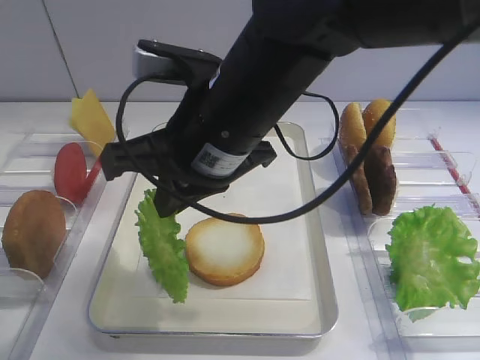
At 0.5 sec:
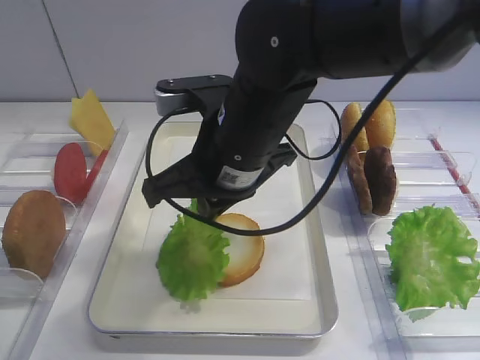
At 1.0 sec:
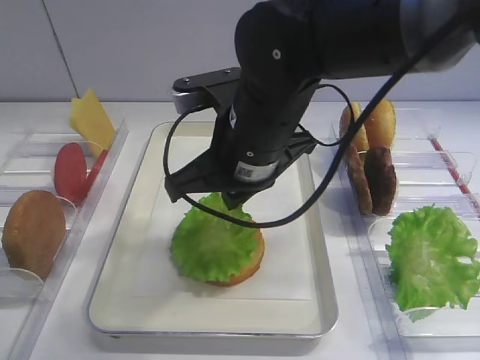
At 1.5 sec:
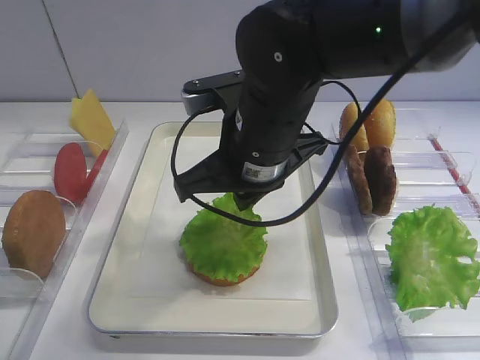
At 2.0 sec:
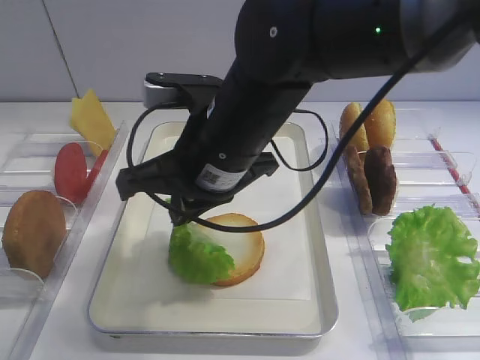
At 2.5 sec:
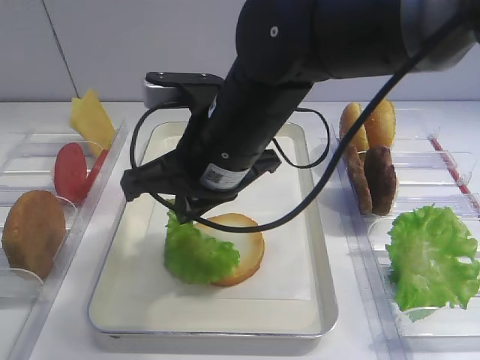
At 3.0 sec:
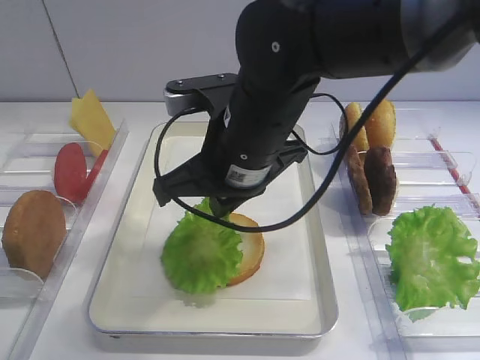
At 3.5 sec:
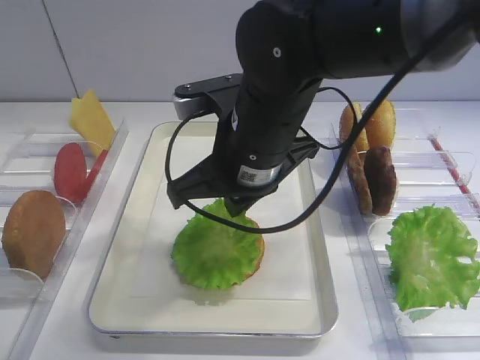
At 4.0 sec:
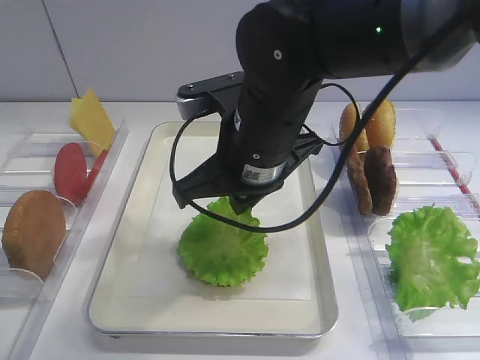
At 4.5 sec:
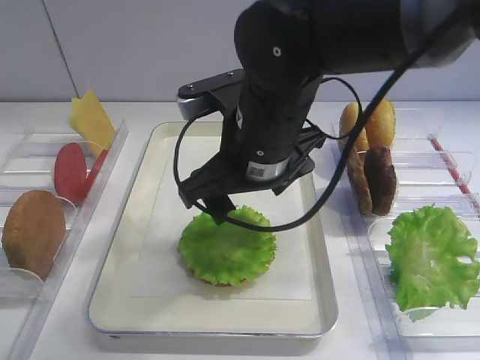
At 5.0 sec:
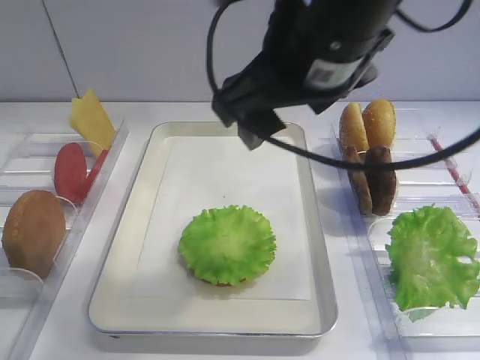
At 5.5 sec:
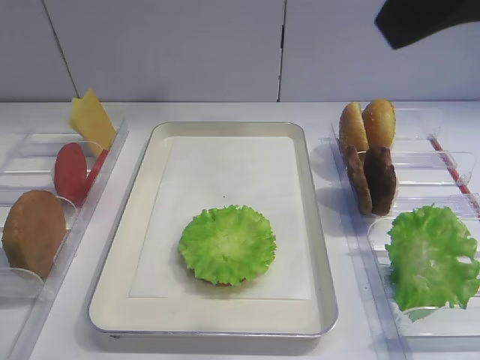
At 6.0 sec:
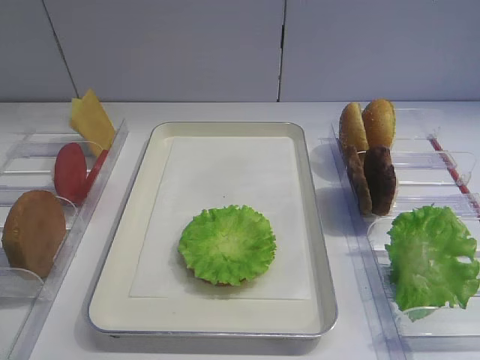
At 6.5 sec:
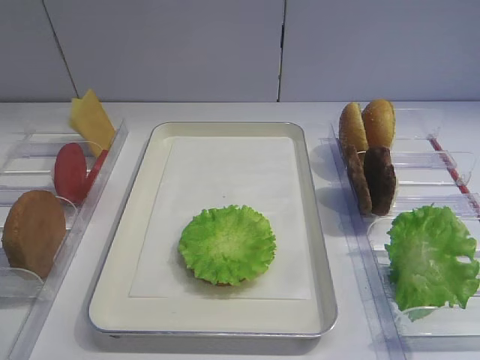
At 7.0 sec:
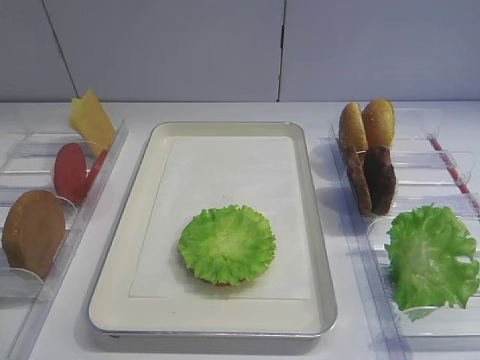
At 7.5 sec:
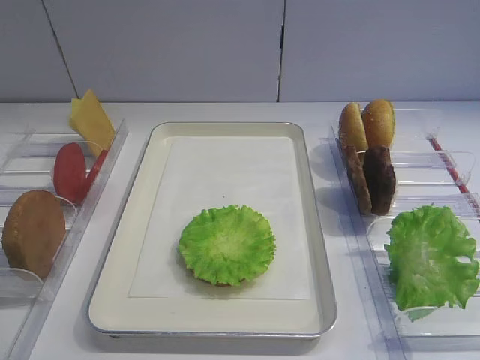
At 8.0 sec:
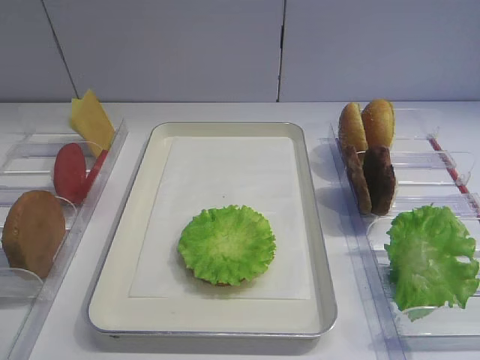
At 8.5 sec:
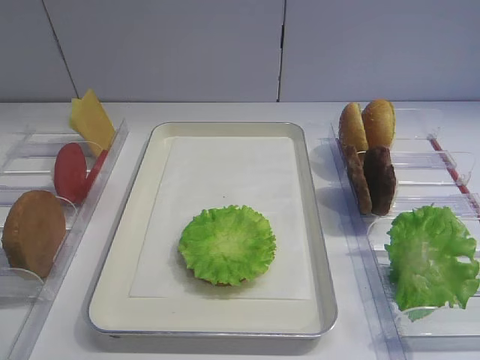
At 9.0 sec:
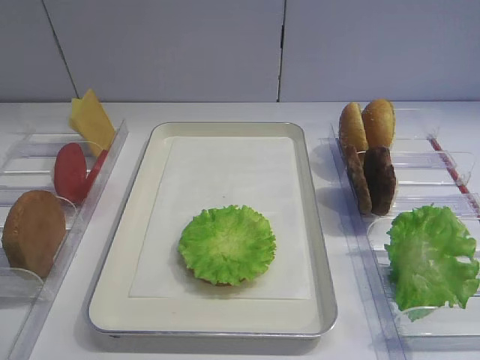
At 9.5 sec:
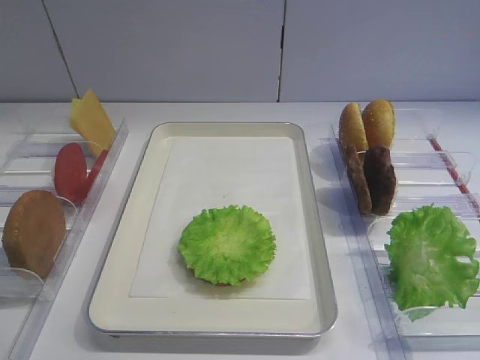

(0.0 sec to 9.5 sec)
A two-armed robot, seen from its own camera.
Step, 0.0 sec - 4.0 sec: Place the lettuce leaf on the bread slice with the right gripper.
2.0 sec - 4.0 sec: The grippers move only a little.
4.0 sec - 5.5 sec: The right gripper shifts about 30 cm upward, to the right and backward, and opens.
5.5 sec - 7.5 sec: The right gripper moves downward, backward and to the right, roughly 25 cm.

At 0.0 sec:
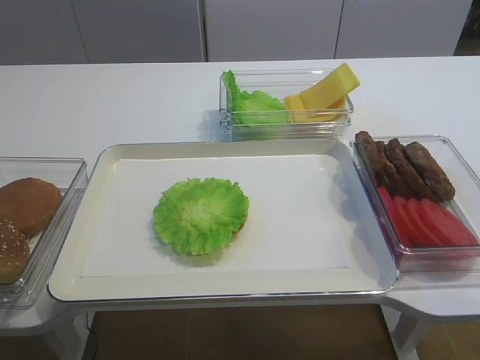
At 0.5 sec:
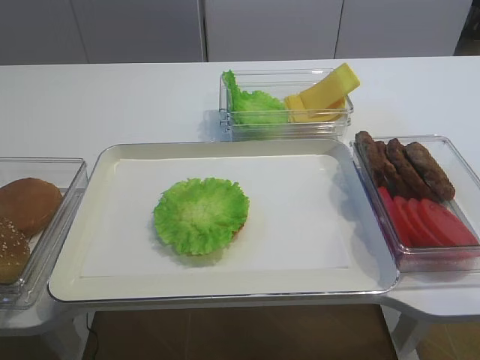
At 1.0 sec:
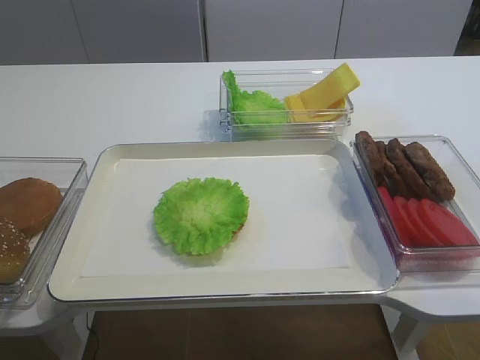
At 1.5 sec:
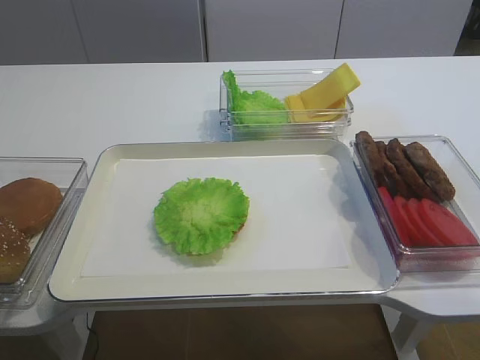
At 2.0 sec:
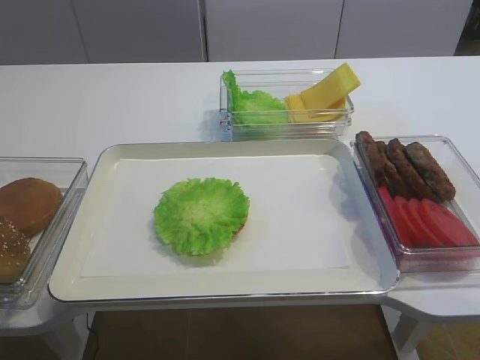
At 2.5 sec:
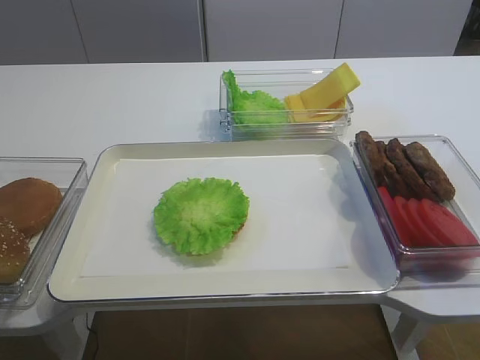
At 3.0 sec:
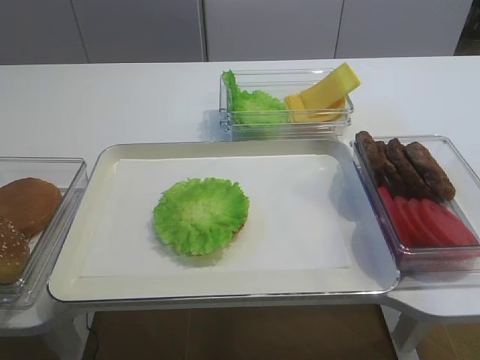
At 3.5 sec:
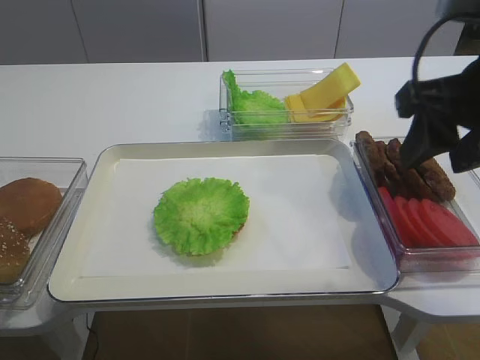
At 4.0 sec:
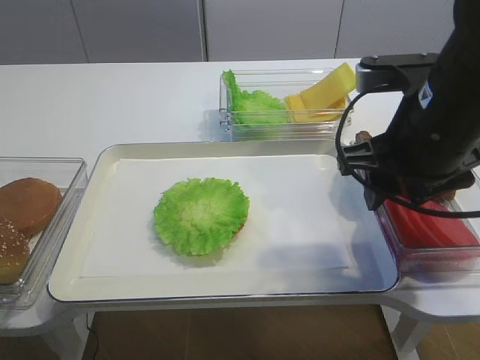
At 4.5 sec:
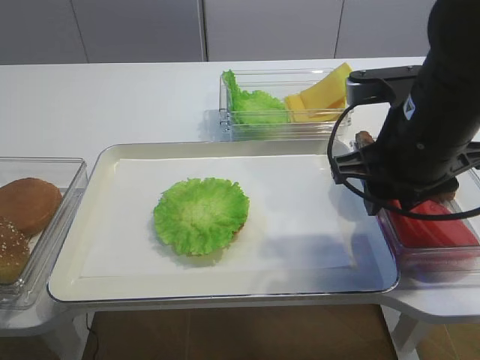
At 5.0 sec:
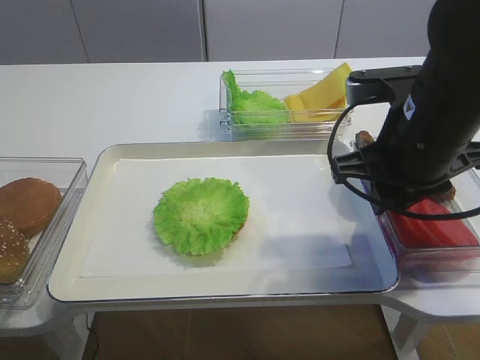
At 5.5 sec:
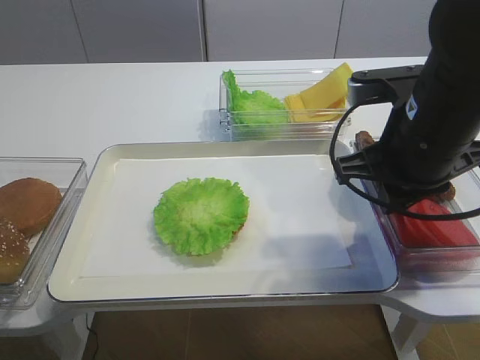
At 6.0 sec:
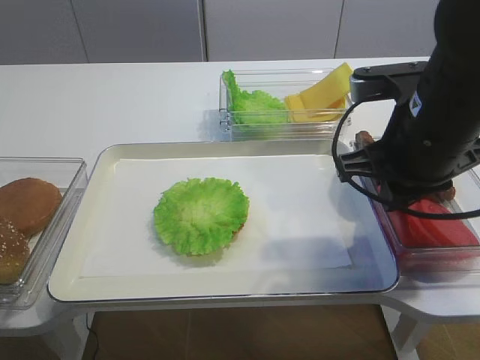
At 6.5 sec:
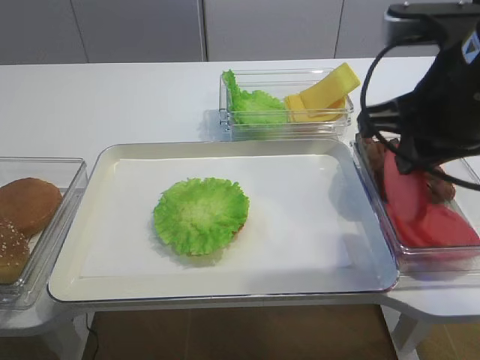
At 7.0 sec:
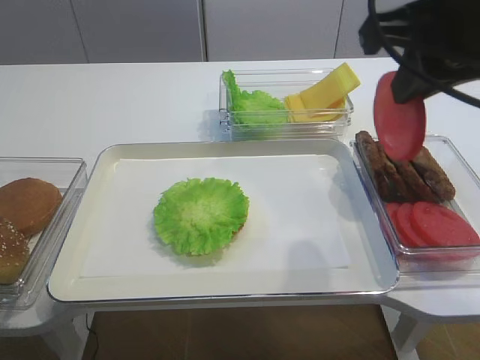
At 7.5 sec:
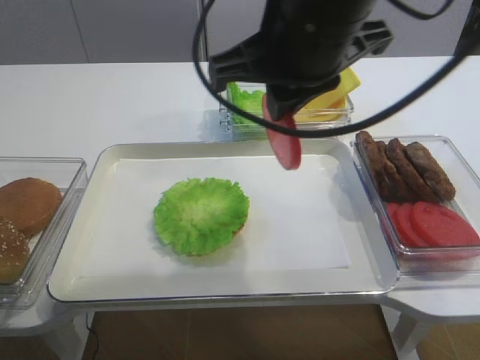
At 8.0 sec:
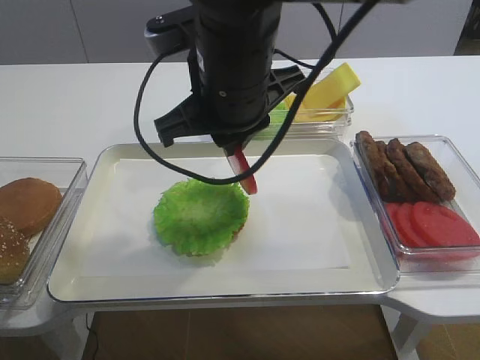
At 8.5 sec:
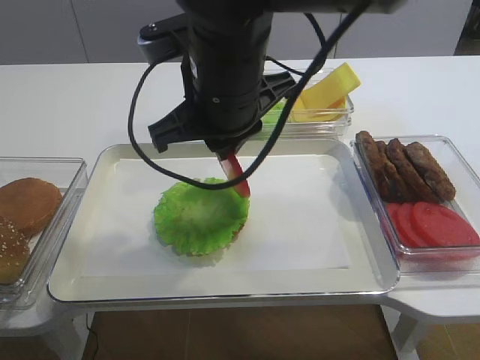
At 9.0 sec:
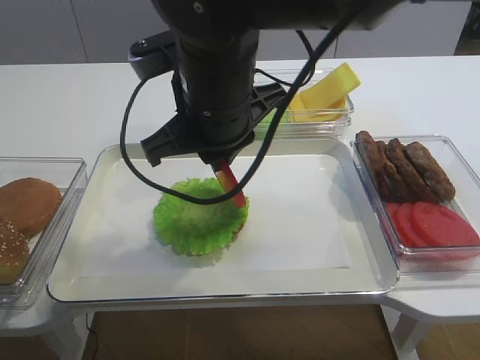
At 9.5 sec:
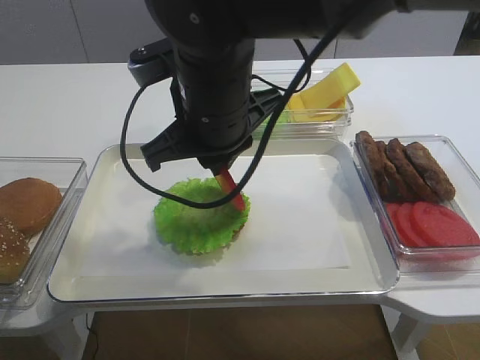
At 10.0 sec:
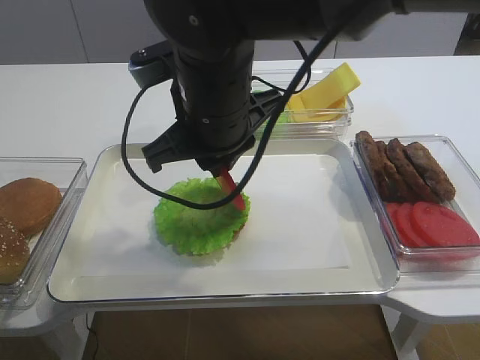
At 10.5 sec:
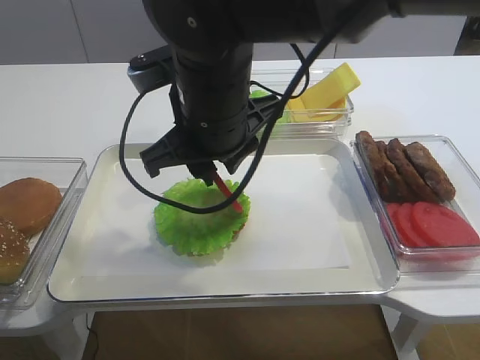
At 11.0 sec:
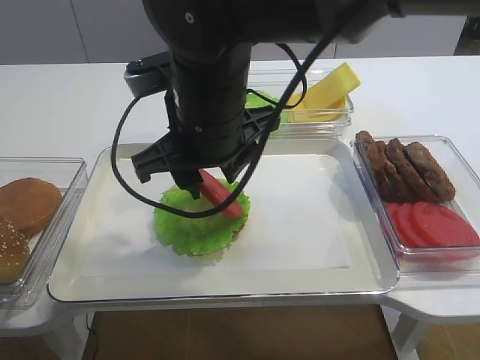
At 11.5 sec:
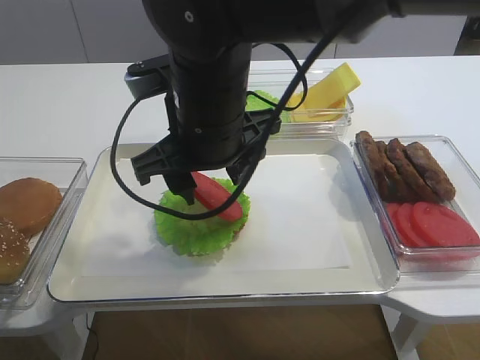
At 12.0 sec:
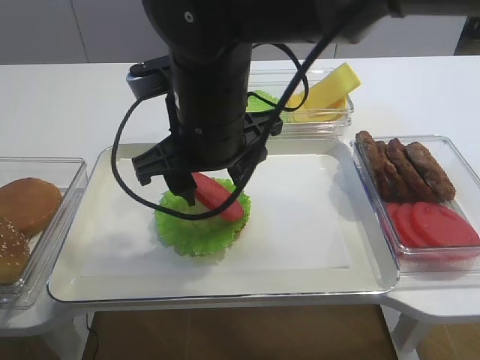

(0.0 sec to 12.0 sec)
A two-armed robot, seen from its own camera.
Step, 0.0 sec - 6.0 sec: Pick up the tomato slice with the right gripper.
2.0 sec - 4.0 sec: The right gripper moves forward and to the left, some 25 cm.
4.0 sec - 6.0 sec: The right gripper closes its fingers.
6.0 sec - 8.0 sec: The right gripper is displaced to the left by about 15 cm.
8.0 sec - 10.0 sec: The grippers make only small movements.
10.0 sec - 12.0 sec: The right gripper opens.

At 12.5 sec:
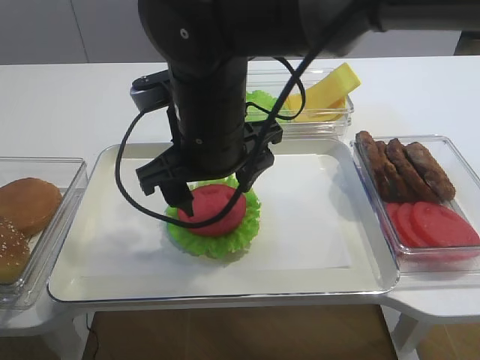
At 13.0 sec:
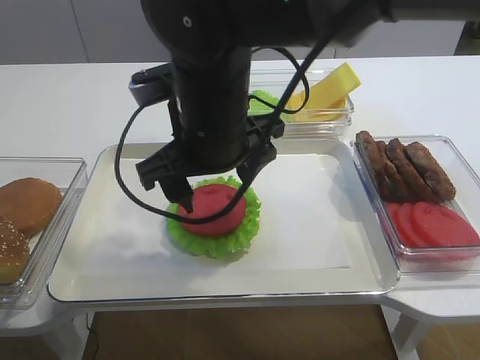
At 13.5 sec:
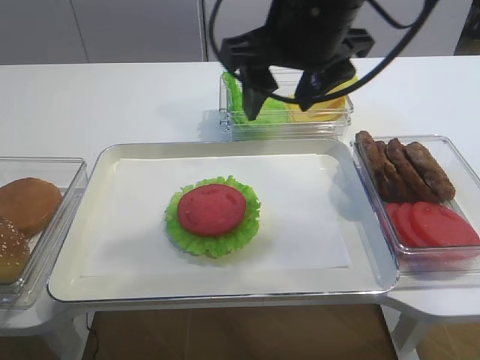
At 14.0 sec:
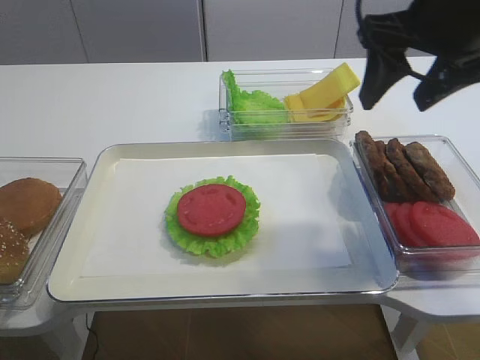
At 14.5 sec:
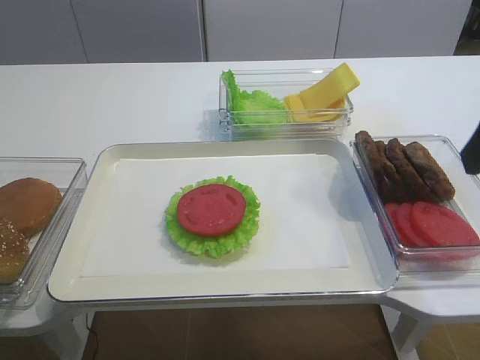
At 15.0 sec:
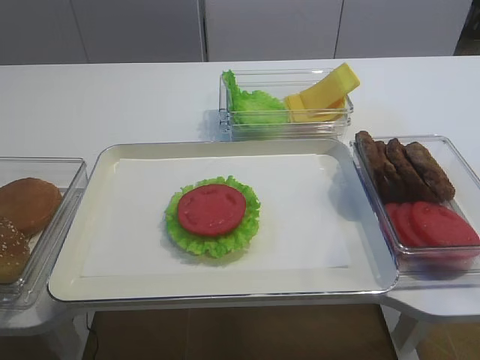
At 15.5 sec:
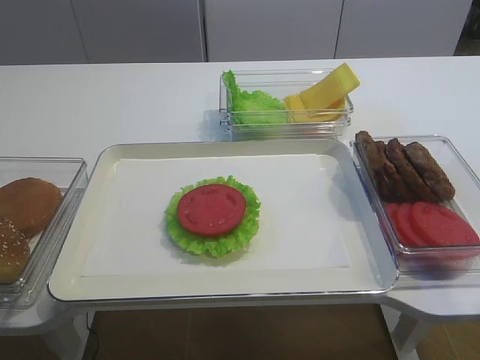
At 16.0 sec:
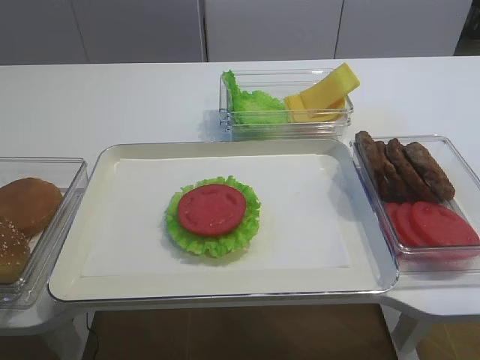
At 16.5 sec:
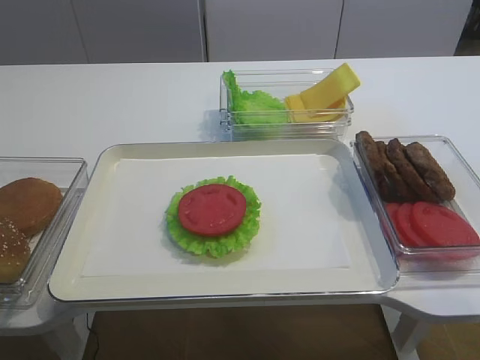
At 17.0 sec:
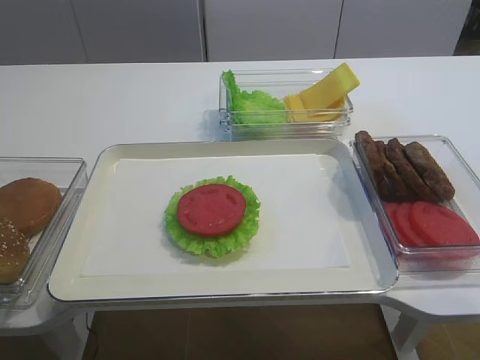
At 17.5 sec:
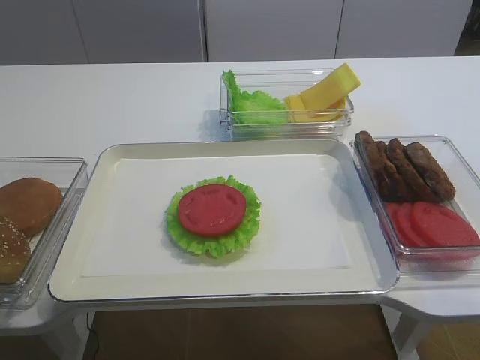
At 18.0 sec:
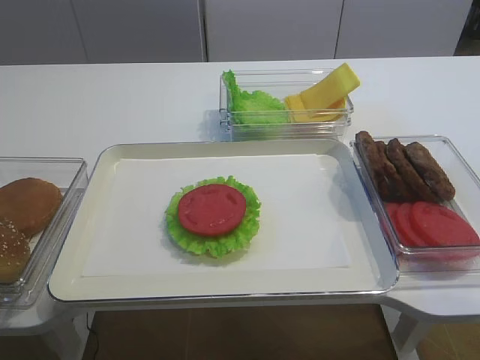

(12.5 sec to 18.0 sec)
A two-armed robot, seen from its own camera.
12.5 sec - 14.5 sec: The right gripper goes about 25 cm to the right.
14.5 sec - 16.0 sec: The right gripper shifts roughly 20 cm backward.
